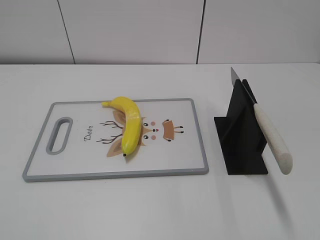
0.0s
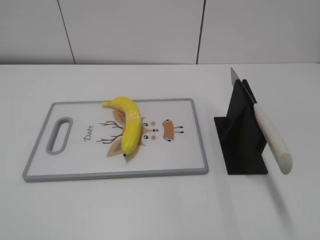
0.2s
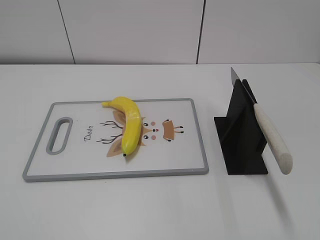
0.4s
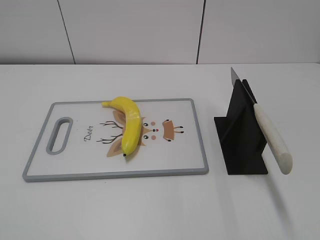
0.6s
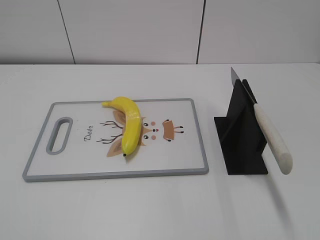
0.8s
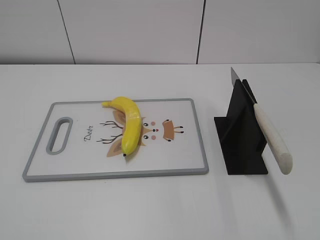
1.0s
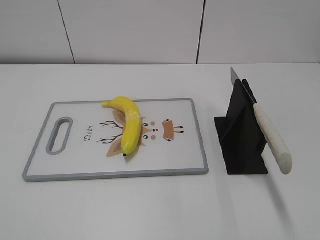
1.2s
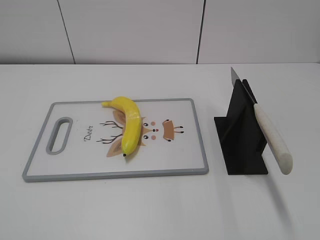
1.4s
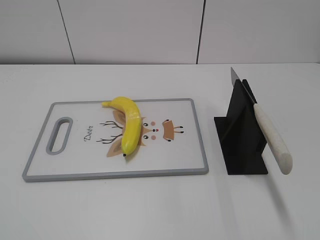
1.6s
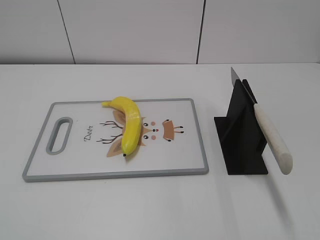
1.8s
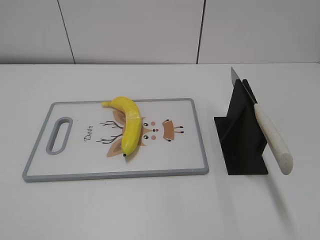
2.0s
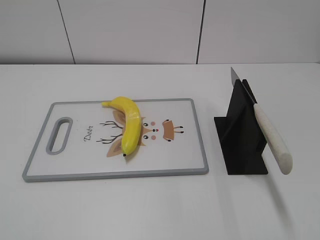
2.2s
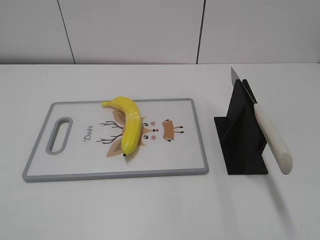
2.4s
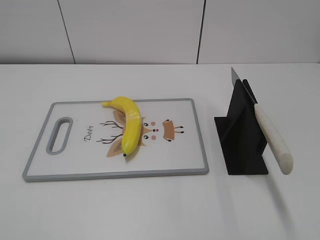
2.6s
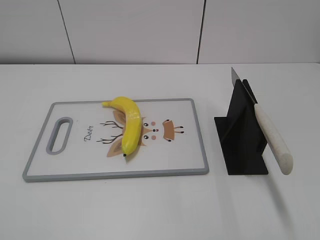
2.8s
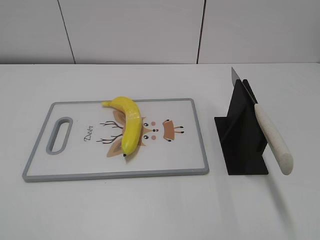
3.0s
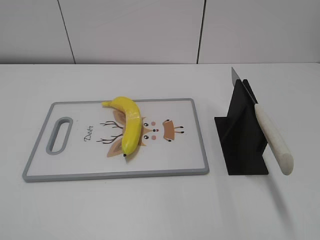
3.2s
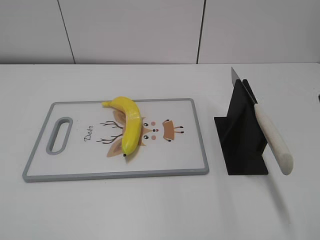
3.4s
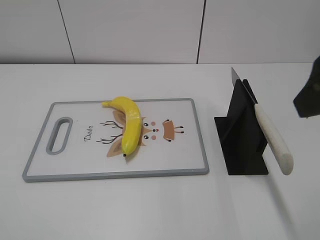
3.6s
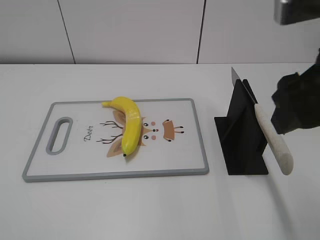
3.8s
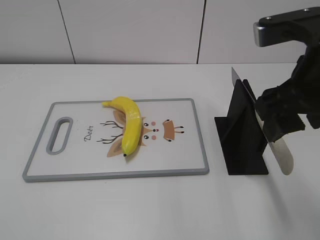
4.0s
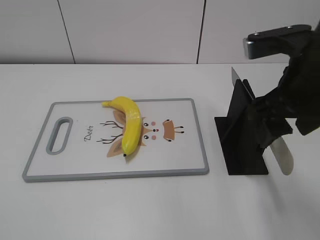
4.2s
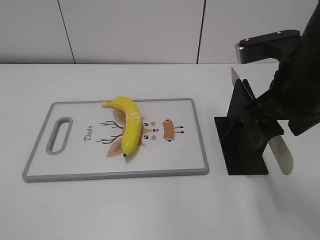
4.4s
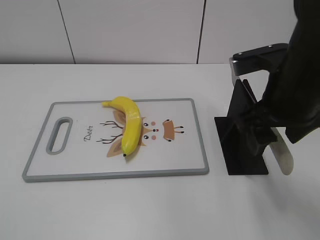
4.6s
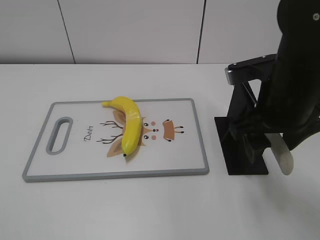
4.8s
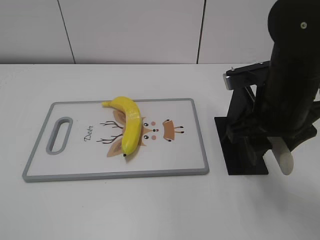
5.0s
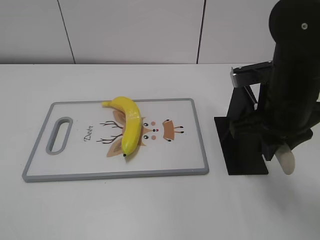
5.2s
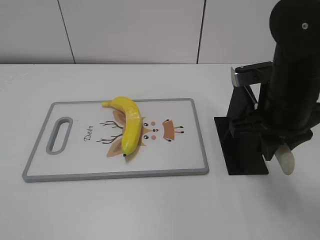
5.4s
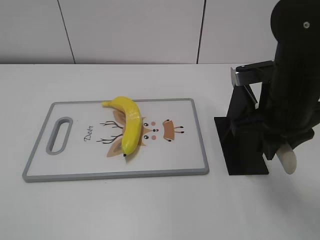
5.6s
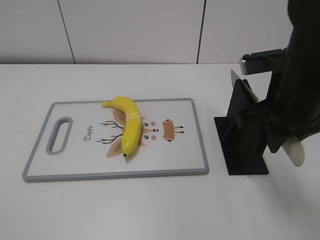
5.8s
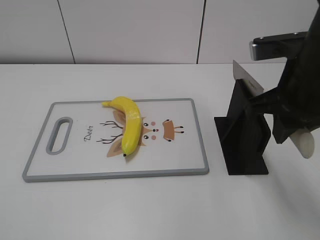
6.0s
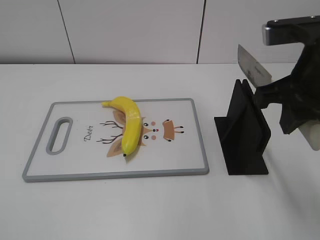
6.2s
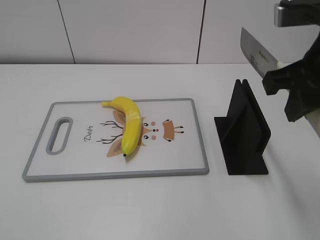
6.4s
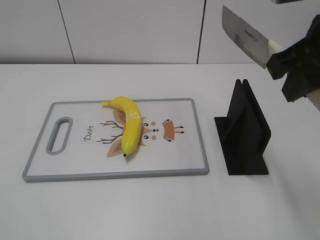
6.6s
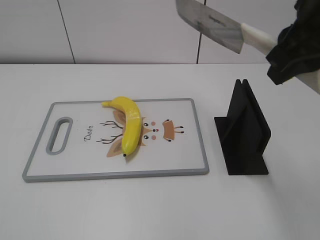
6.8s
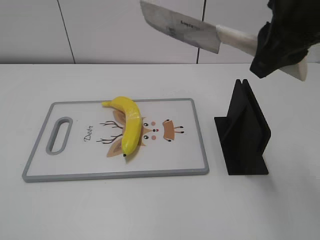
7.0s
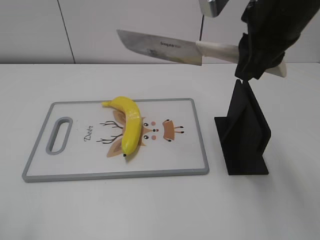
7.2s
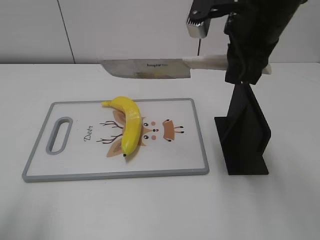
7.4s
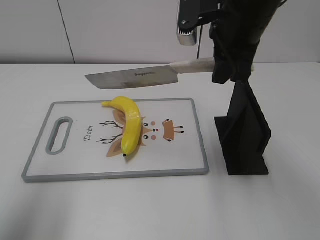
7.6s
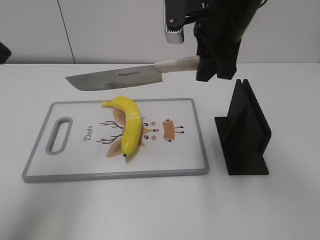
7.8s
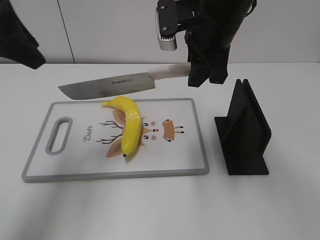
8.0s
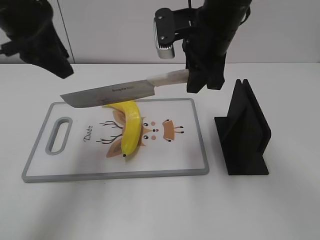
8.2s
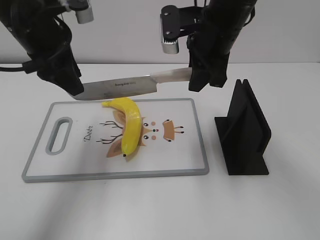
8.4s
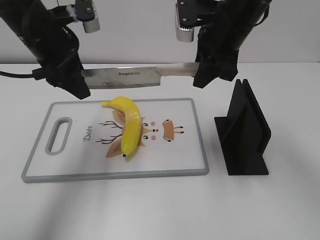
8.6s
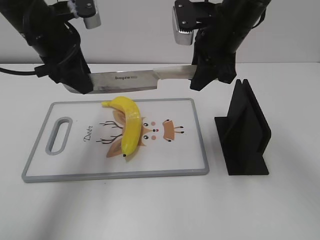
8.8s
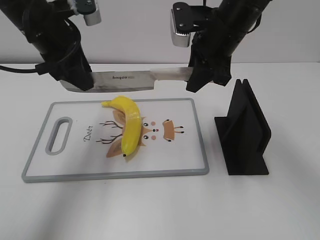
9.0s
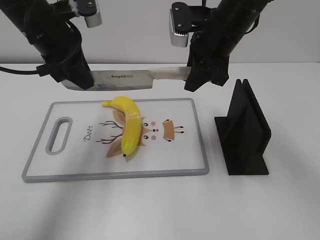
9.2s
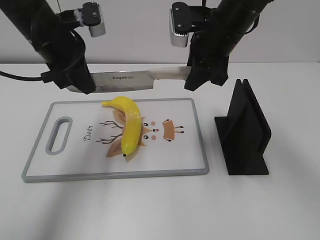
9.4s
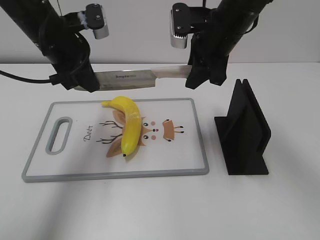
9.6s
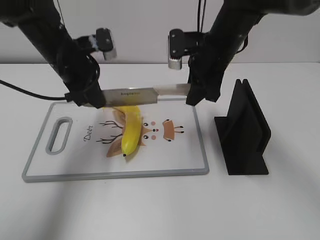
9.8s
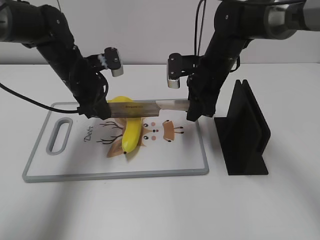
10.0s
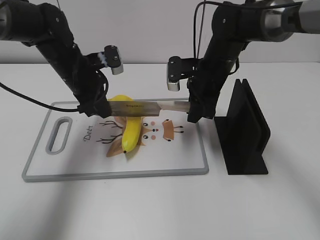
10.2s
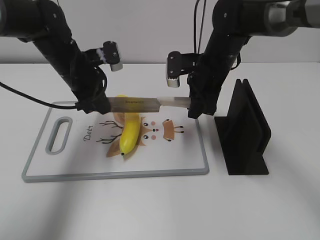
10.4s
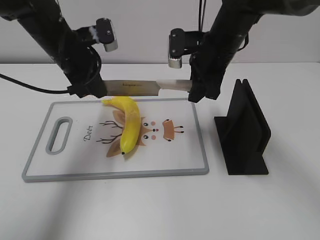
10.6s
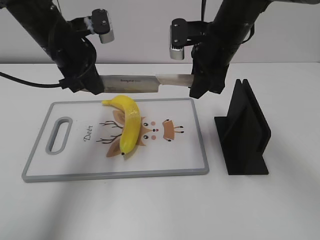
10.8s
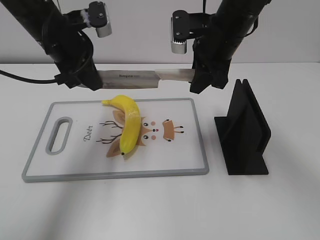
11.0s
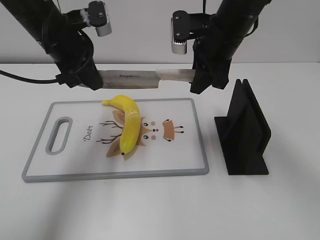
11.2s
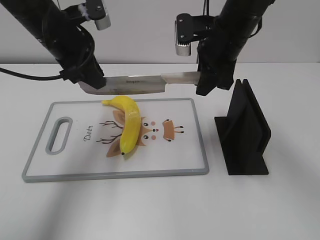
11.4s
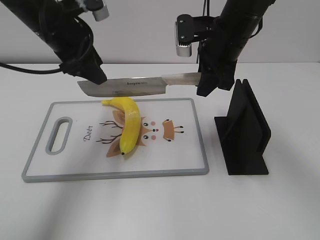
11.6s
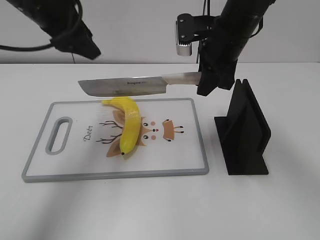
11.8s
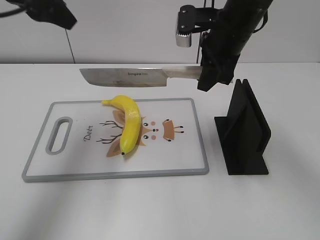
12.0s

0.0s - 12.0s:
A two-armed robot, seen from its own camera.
Task of the whole recording: cut plastic banana.
Step, 0.0s - 6.6s: Grab the knife handle with your right hand.
Step, 7.0s - 11.4s: Lift the knife with your right hand.
3.0s - 4.4s: The right gripper shifts approximately 20 cm forward, to the left and downward.
4.4s - 6.0s: The right gripper closes.
6.0s - 7.6s: The right gripper goes some 10 cm forward and to the left. Meanwhile the left gripper shifts roughly 20 cm forward and upward.
7.6s - 9.0s: The left gripper is displaced forward, to the right and downward by about 25 cm. The right gripper goes about 5 cm forward.
9.0s - 10.4s: Both grippers travel together downward, approximately 10 cm. The left gripper closes up.
10.4s - 12.0s: The left gripper travels upward by roughly 20 cm, and opens up, while the right gripper goes about 10 cm upward.

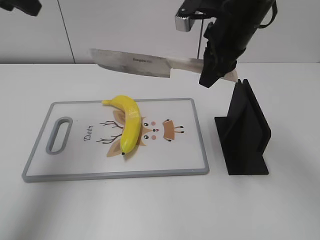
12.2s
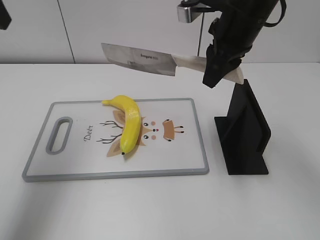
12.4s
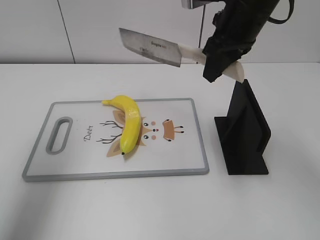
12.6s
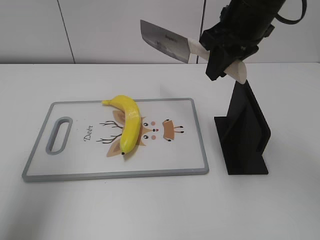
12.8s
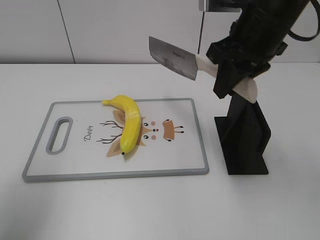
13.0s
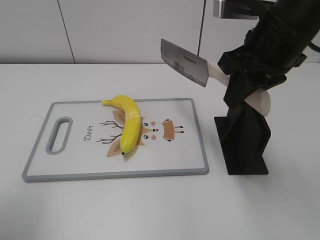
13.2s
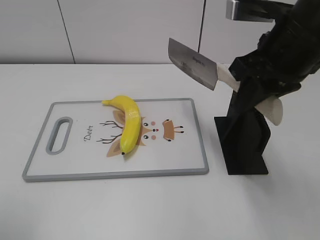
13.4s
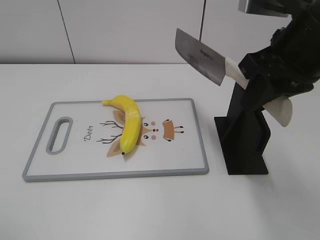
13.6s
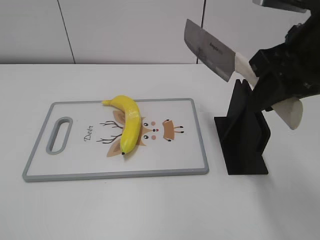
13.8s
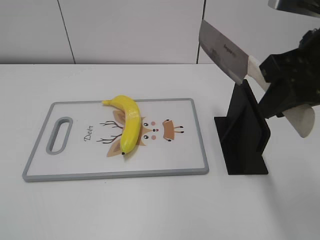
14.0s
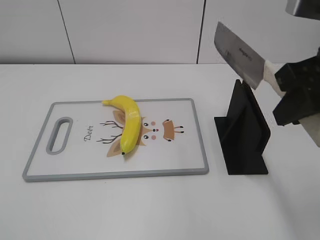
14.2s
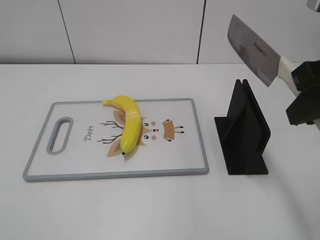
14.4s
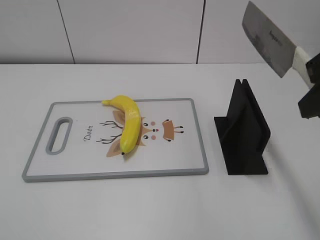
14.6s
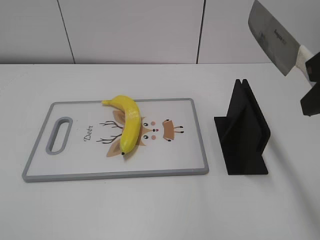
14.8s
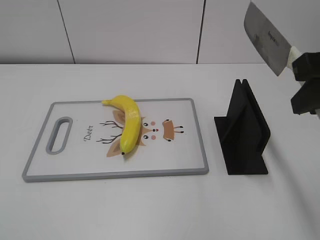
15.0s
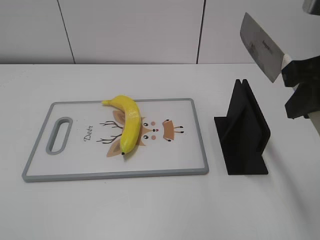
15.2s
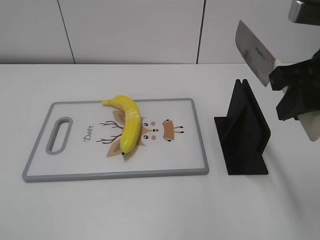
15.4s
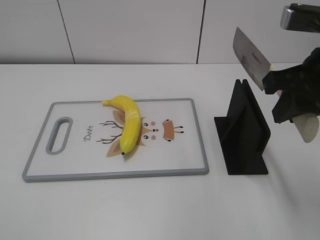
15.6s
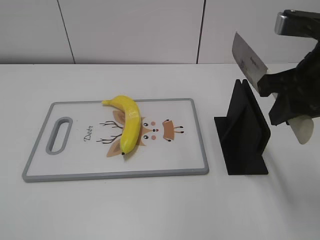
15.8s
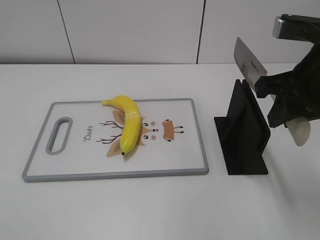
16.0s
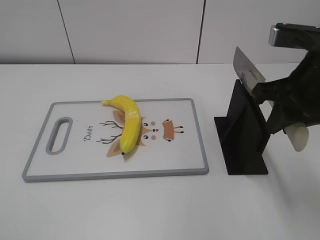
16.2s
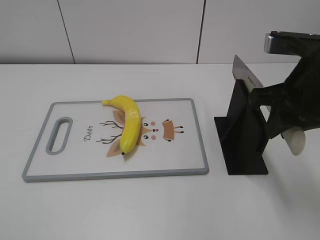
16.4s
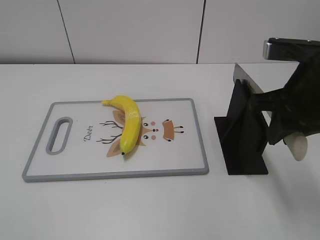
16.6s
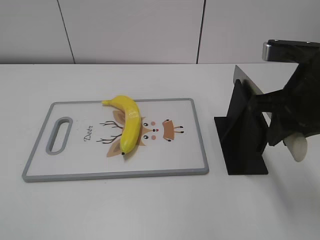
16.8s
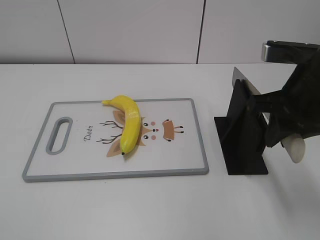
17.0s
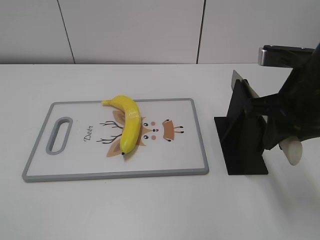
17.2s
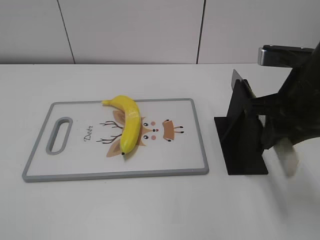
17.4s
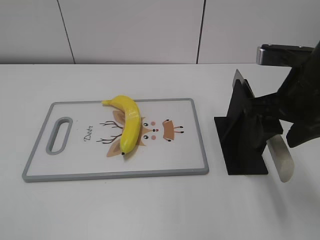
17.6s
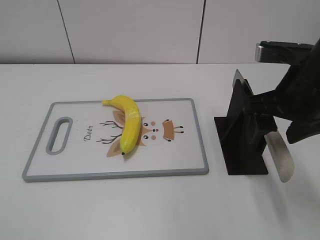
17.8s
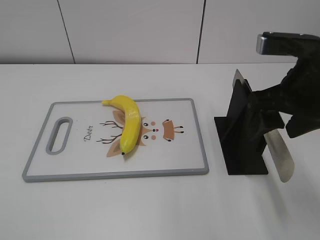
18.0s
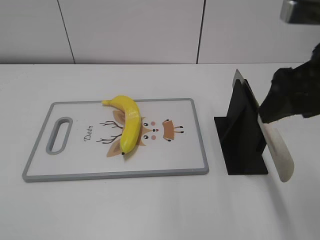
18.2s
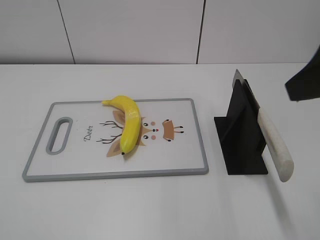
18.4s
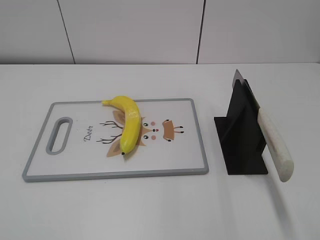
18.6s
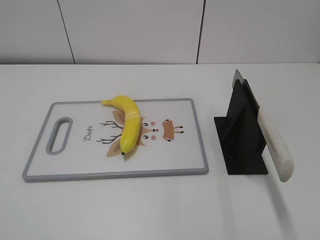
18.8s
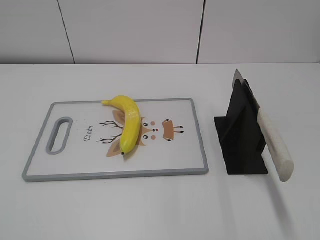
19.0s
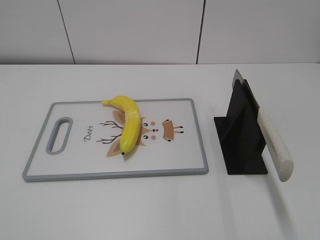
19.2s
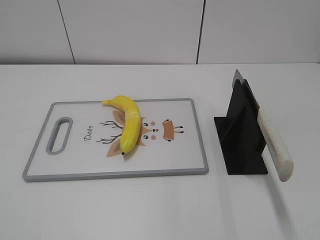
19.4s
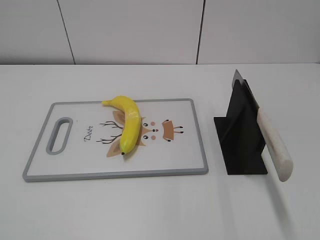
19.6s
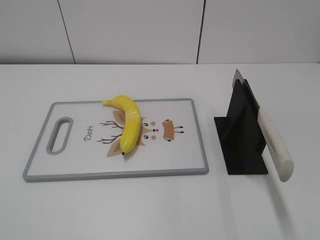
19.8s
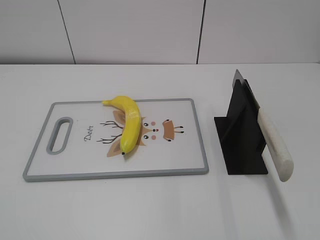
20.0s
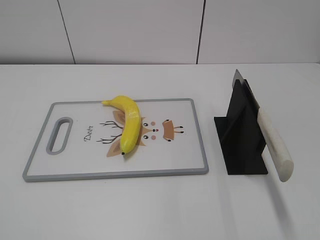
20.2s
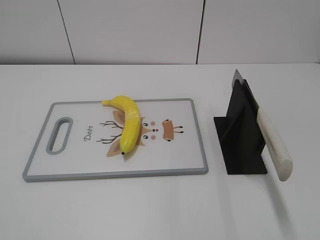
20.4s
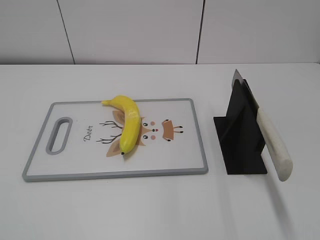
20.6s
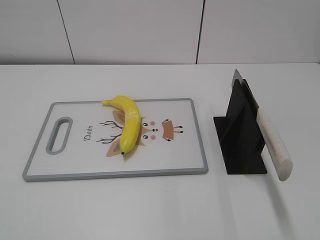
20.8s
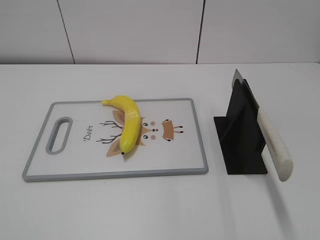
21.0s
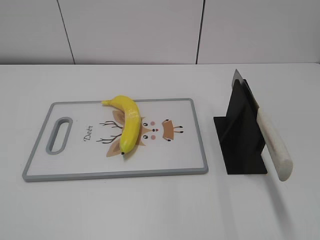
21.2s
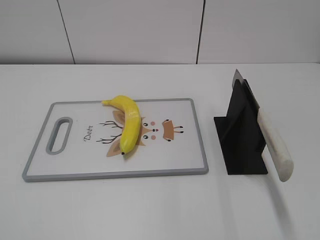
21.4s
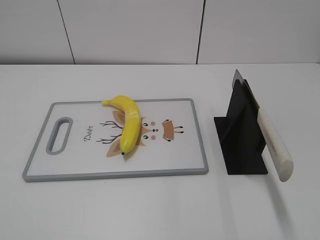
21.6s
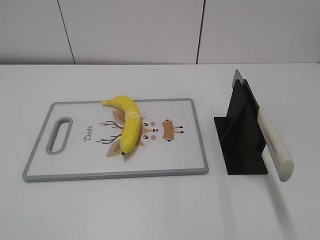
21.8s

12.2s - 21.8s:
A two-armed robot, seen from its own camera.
Task of the whole recording: cut plastic banana.
Step, 12.8s - 14.0s: Lift the knife with your right hand.
Step, 14.2s - 21.8s: Place the knife on the storage rack with your right hand.
12.2s - 13.8s: The right gripper shifts about 15 cm backward and to the right; the left gripper is displaced backward by about 30 cm.
13.8s - 15.4s: The left gripper travels backward by some 5 cm.
15.4s - 17.0s: The right gripper heads downward, covering about 5 cm.
17.0s - 18.6s: The right gripper is displaced upward and backward by roughly 15 cm, and opens.
